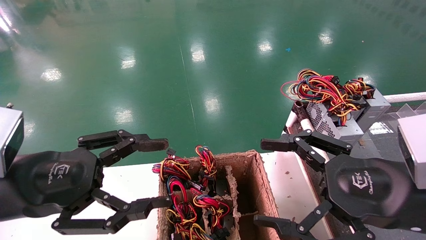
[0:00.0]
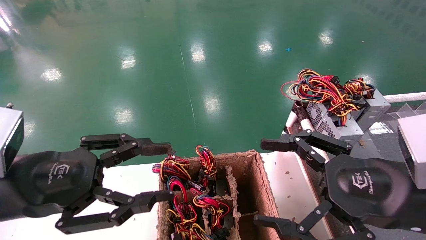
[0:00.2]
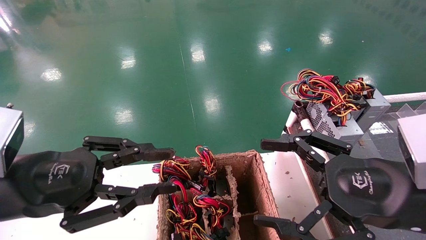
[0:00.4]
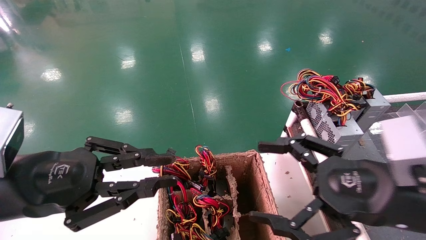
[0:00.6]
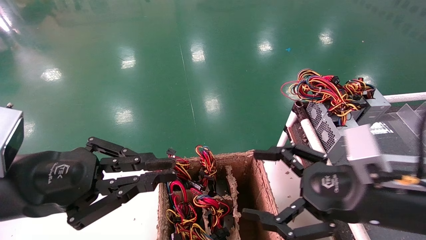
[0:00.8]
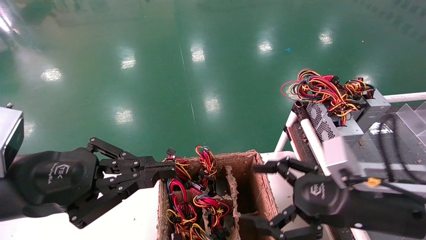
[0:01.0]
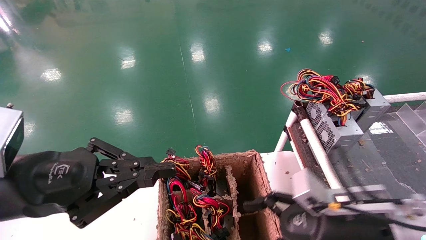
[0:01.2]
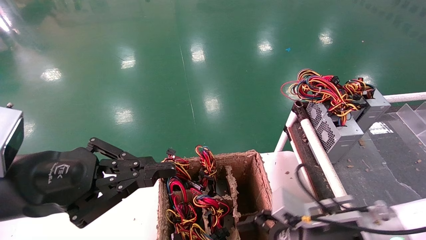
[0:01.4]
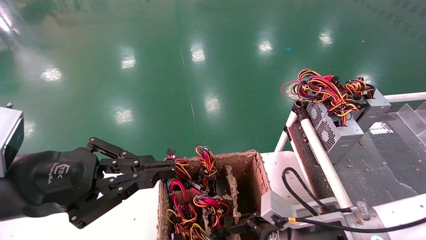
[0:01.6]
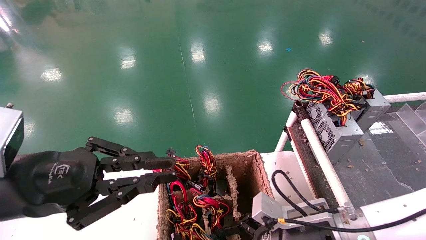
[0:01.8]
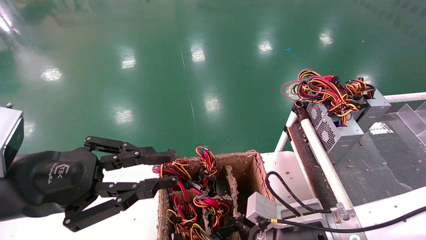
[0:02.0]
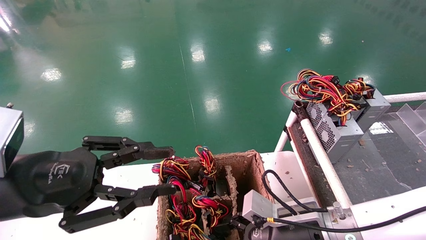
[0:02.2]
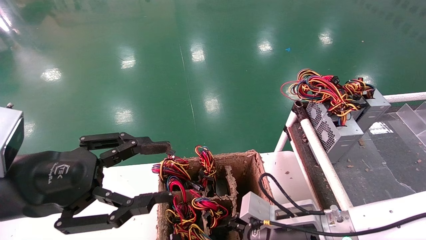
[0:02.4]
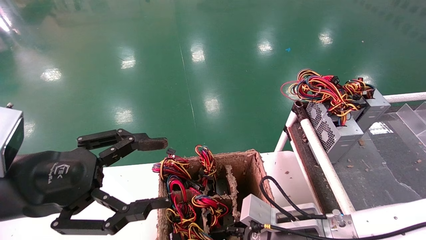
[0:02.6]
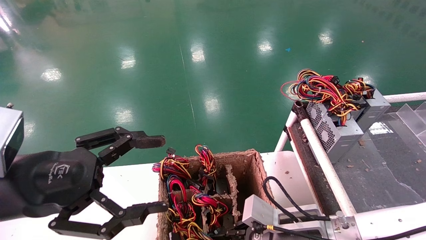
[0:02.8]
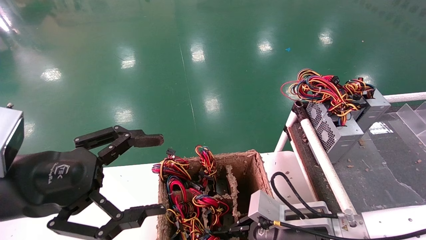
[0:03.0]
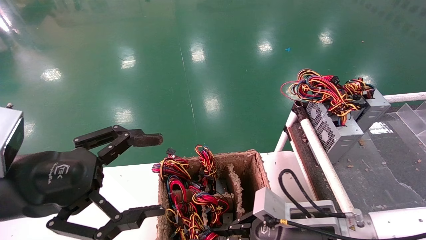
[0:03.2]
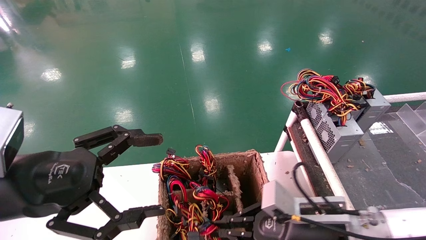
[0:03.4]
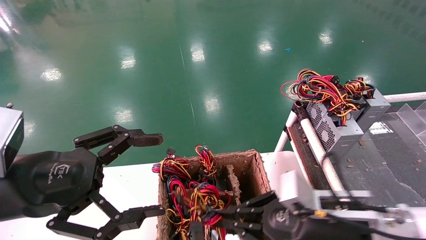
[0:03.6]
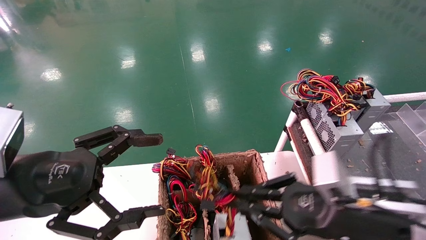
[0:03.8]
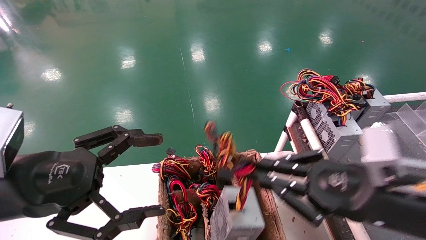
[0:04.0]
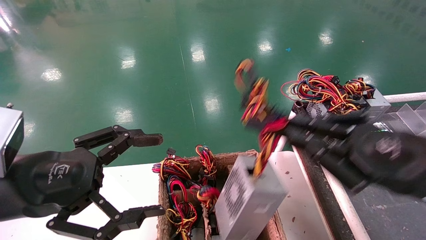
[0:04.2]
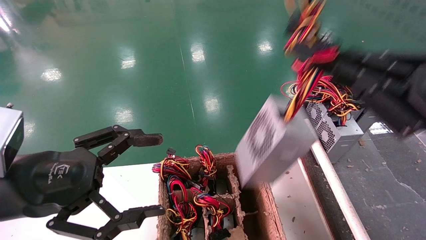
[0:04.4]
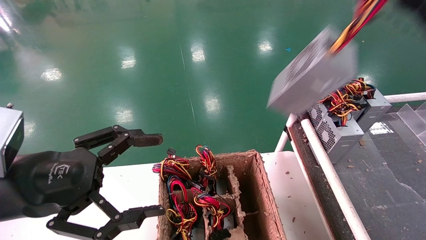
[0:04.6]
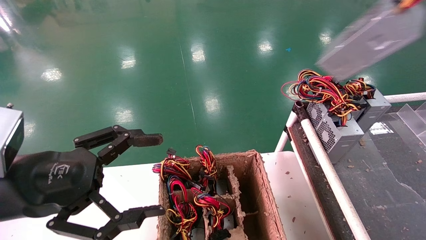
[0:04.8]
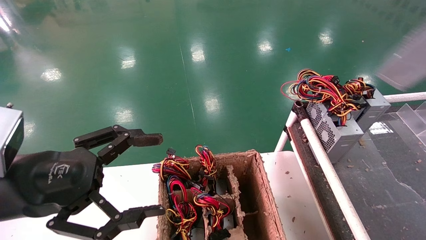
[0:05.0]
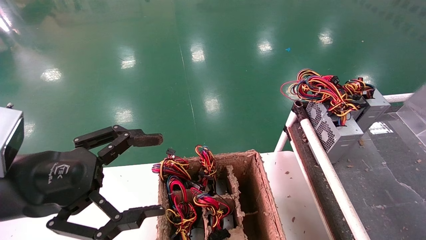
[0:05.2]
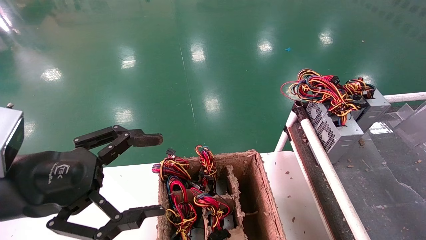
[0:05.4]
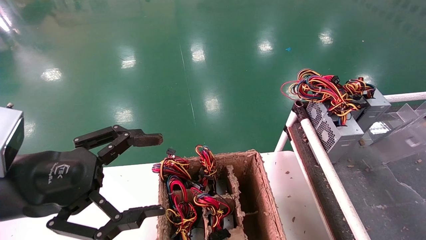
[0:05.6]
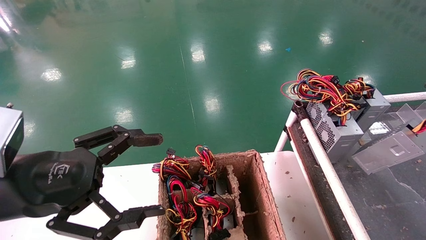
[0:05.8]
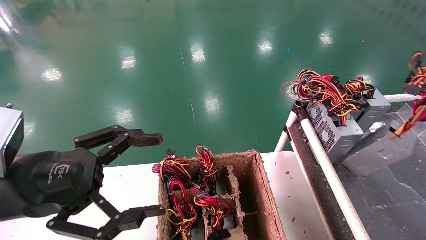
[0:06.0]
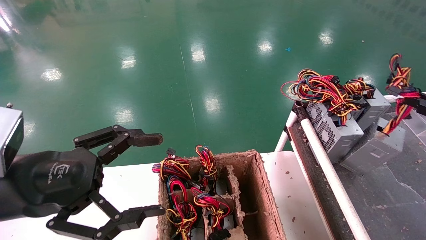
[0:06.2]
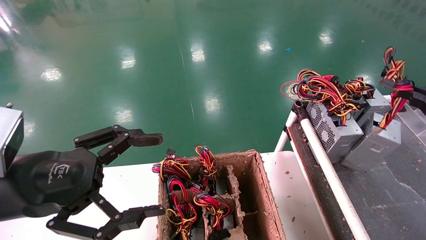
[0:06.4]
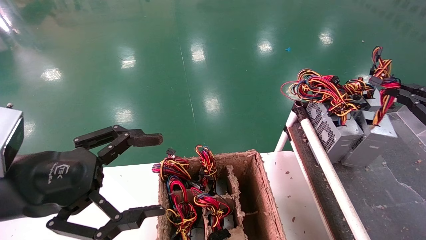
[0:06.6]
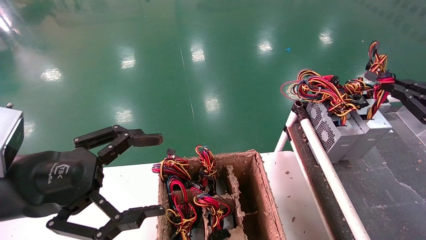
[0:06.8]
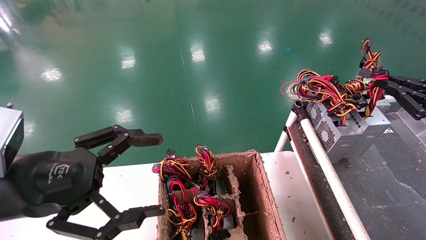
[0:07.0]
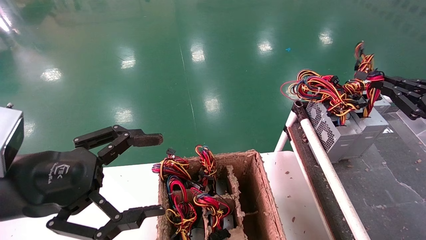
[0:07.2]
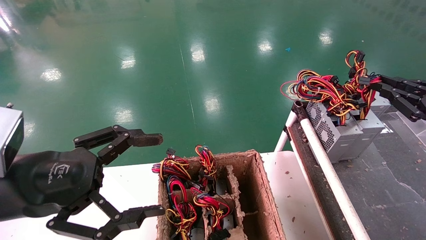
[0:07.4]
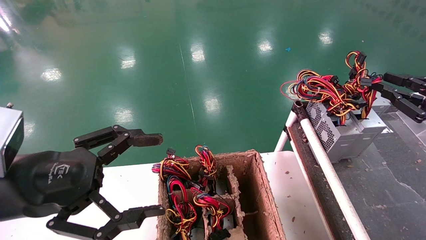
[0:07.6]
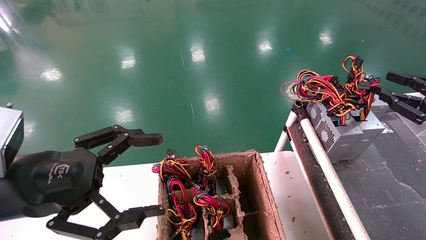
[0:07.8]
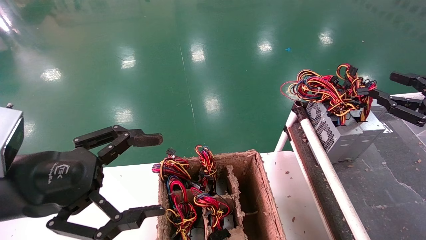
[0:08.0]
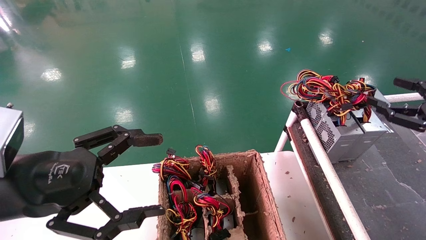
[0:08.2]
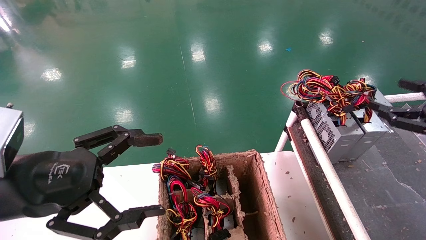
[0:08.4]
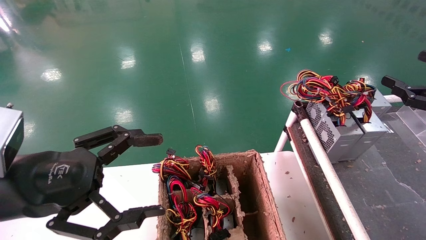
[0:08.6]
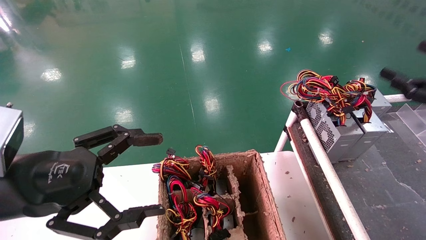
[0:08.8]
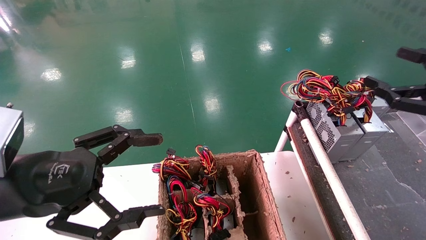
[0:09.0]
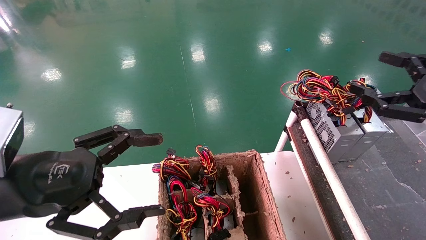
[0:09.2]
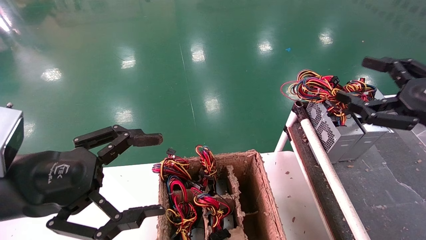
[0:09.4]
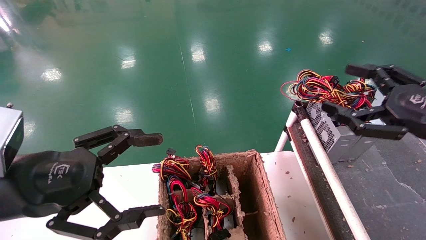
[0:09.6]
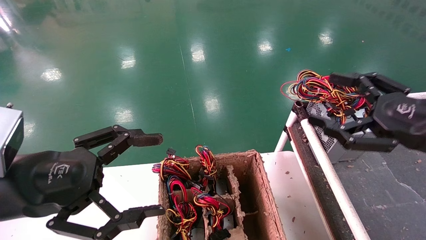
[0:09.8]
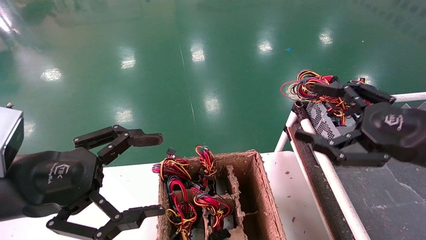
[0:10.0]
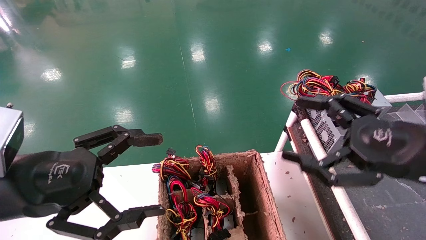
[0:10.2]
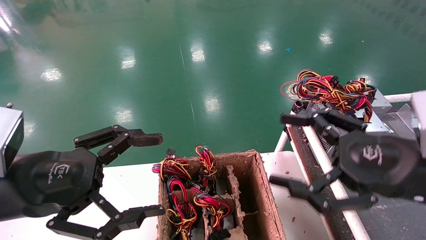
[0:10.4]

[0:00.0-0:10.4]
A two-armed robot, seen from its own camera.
Step, 0:01.0 to 0:03.6: Grab and lift the power supply from the large box.
Step, 0:03.8 to 0:08.8: Place the power supply on the operating table.
0:00.0 to 0:01.4: The left gripper closes, while the right gripper travels downward and forward by about 15 cm.
0:01.4 to 0:03.0: The left gripper opens its fingers. Meanwhile the right gripper closes.
0:03.0 to 0:04.4: The right gripper is displaced upward, to the right and backward by approximately 25 cm.
0:04.4 to 0:06.0: The right gripper goes some 20 cm to the right.
0:06.0 to 0:07.4: The right gripper heads forward, covering about 5 cm.
0:07.4 to 0:09.0: The right gripper opens.
0:09.0 to 0:10.4: The right gripper goes about 15 cm to the left and backward.
